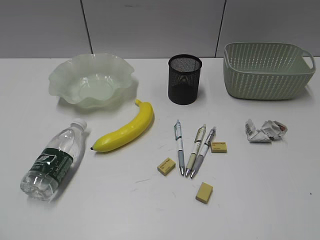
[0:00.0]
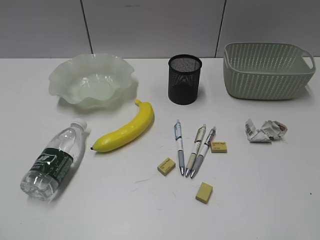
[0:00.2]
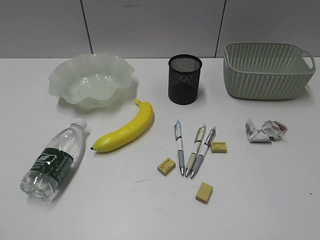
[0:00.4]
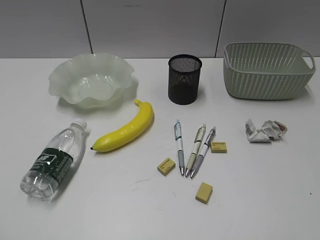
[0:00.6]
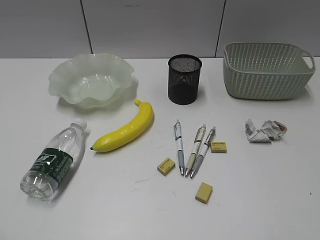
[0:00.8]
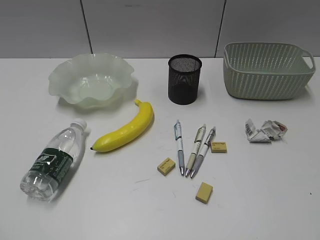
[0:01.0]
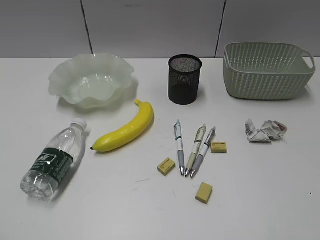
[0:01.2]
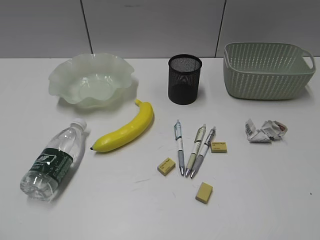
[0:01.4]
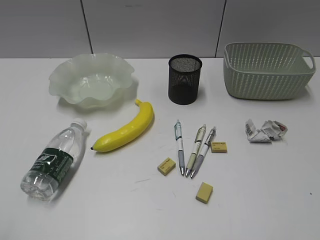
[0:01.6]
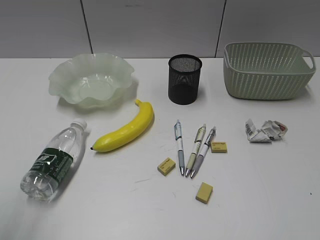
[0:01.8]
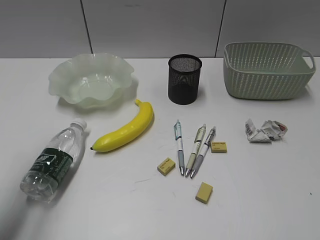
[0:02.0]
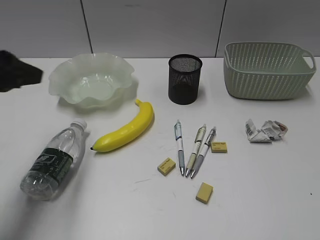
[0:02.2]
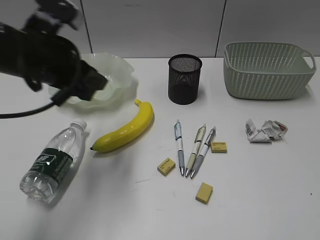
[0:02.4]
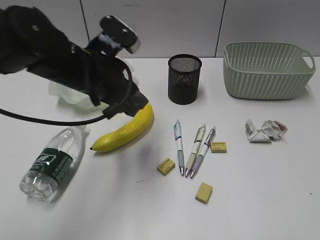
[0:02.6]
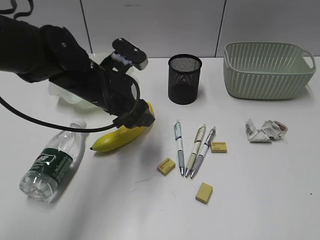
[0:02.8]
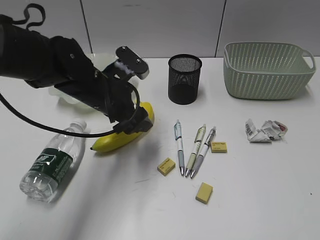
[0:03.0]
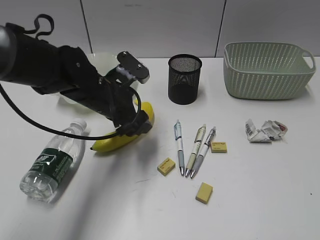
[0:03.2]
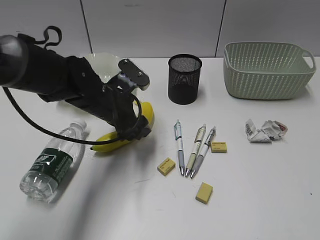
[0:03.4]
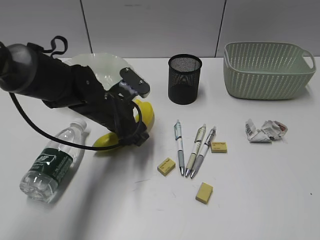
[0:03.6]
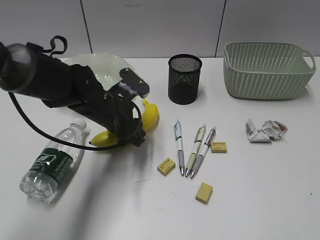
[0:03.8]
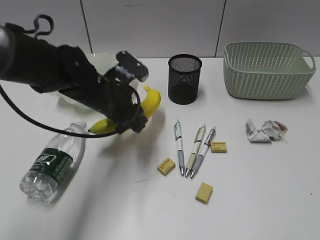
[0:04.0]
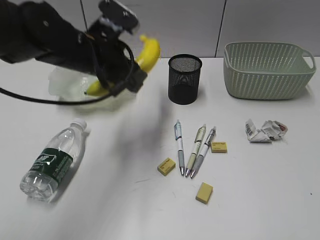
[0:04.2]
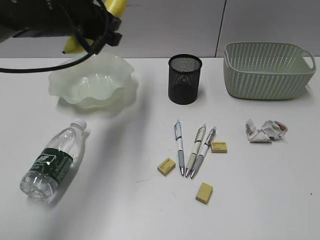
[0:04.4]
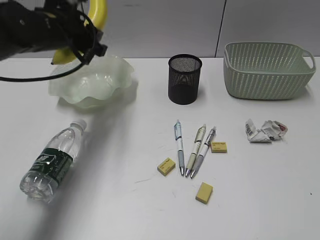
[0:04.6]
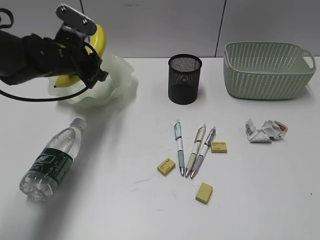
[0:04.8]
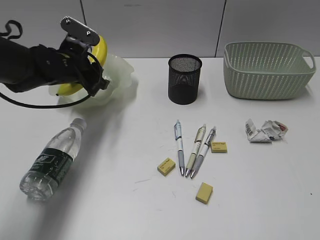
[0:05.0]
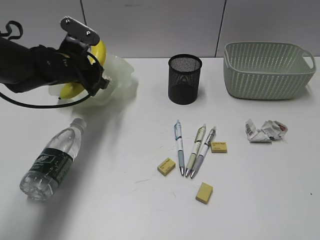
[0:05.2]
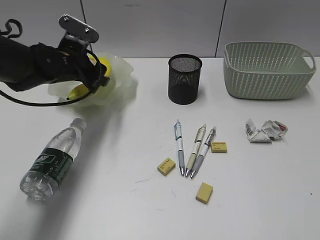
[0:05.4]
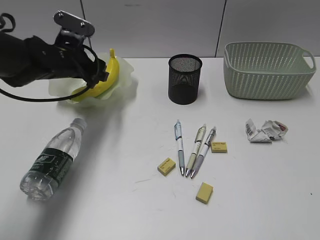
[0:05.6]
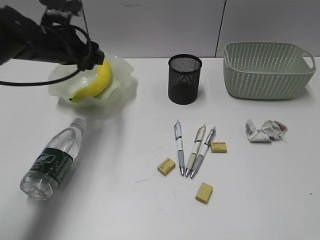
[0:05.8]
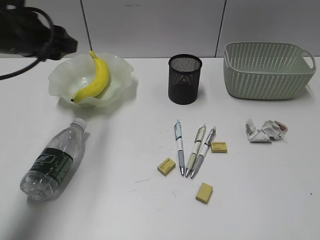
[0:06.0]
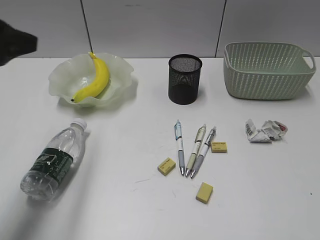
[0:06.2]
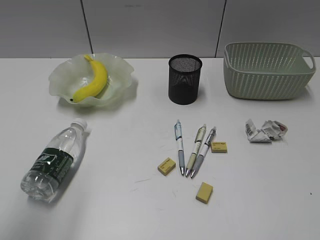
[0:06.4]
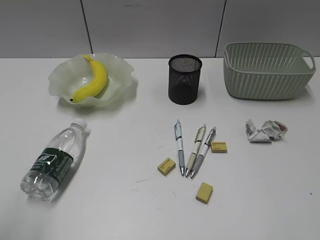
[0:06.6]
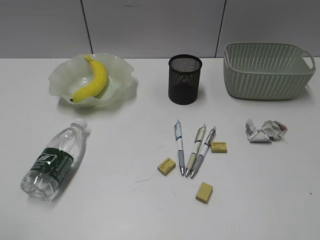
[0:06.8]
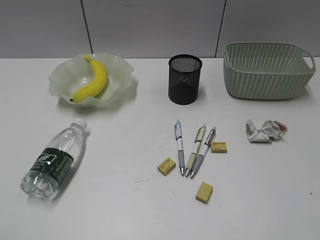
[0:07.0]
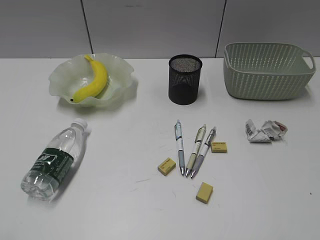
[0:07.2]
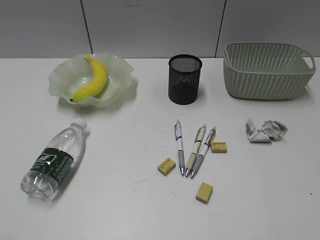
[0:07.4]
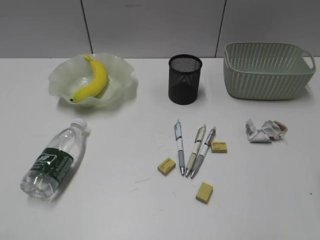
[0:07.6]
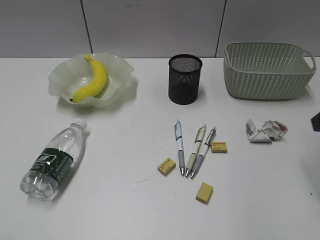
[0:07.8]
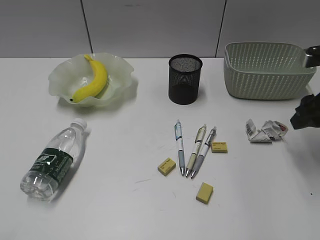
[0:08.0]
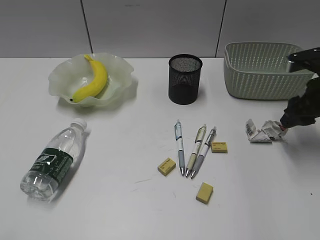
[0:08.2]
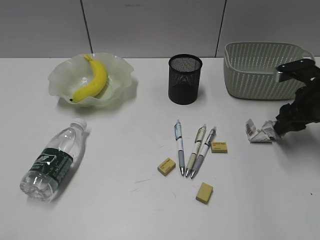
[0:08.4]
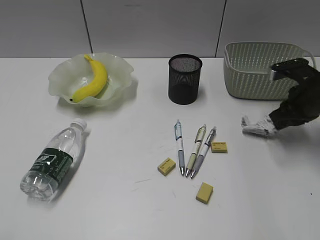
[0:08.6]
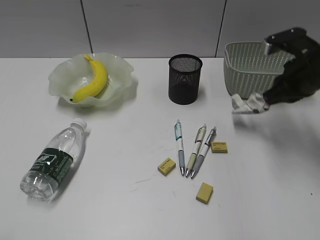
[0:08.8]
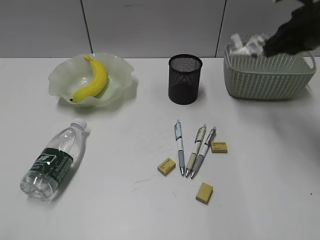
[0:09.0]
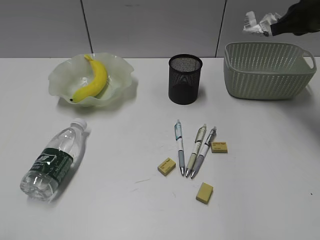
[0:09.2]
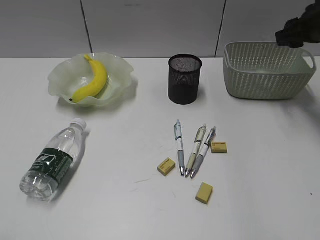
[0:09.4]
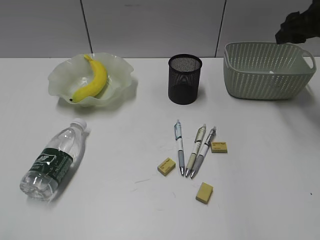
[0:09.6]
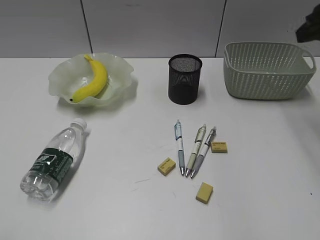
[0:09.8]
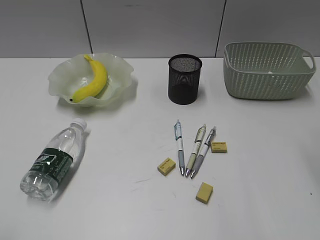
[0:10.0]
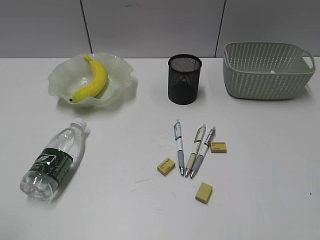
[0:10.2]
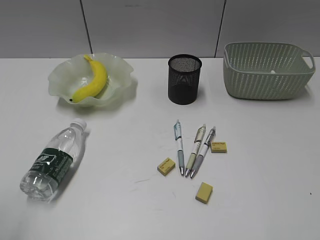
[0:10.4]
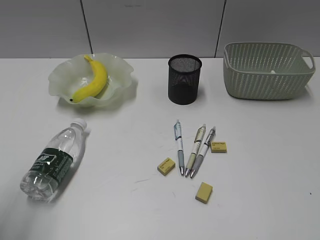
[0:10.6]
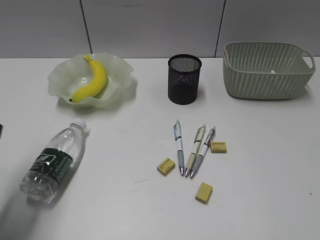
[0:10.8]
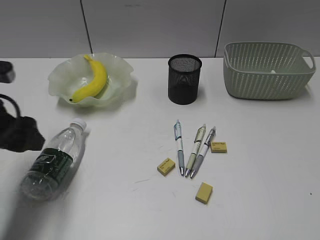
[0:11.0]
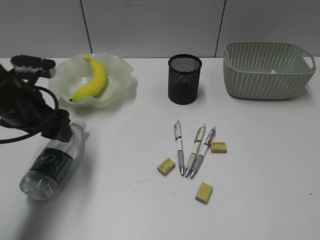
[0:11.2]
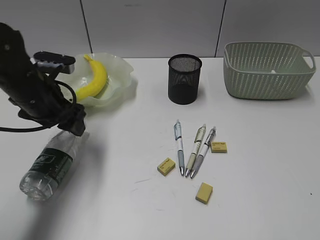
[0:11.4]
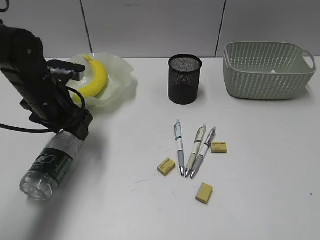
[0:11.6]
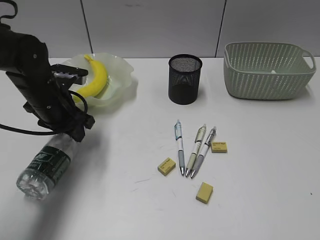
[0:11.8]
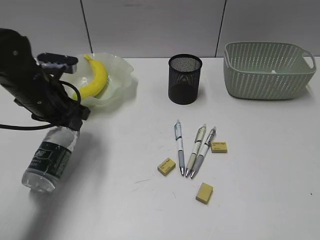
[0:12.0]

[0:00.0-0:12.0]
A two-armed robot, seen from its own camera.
Step, 1.4 to 3.8 s: Grasp the banana with left gripper.
Step, 4.0 to 5.6 s: Place the banana in the plate with left gripper.
Step, 5.8 to 8.6 s: Grasp the waste paper with right gripper.
Step, 8.8 to 9.4 s: Place the waste paper in the basket with right gripper.
Step, 9.6 to 11.8 s: Grasp the bottle with left gripper.
1.6 to 3.0 s: The left gripper shifts approximately 40 cm forward, to the right and downward, and opens up.
3.0 to 4.4 s: The left gripper goes approximately 10 cm upward and to the left, and closes.
4.4 to 6.0 s: The left gripper travels to the left by about 5 cm, and travels downward and back again, roughly 10 cm each way.
6.0 to 7.6 s: The left gripper moves backward, some 35 cm.
7.6 to 9.0 s: The right gripper goes roughly 20 cm forward, and closes up.
9.0 to 10.4 s: The right gripper heads backward, covering some 30 cm, and opens its fingers.
10.4 to 12.0 s: The left gripper heads forward, downward and to the right, covering about 30 cm, and opens, then closes again.

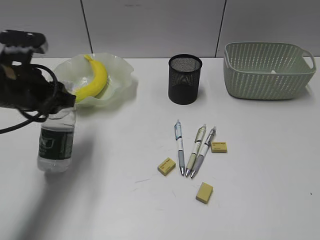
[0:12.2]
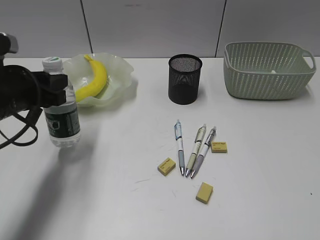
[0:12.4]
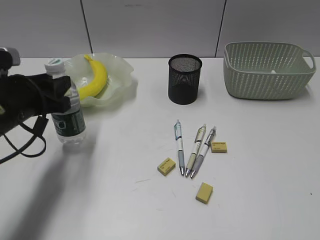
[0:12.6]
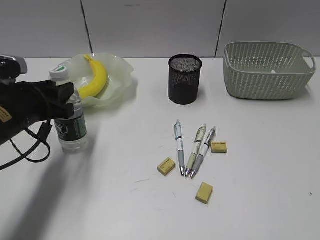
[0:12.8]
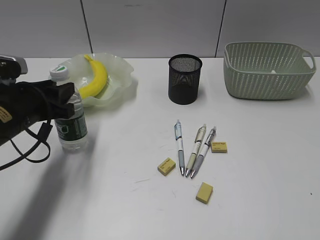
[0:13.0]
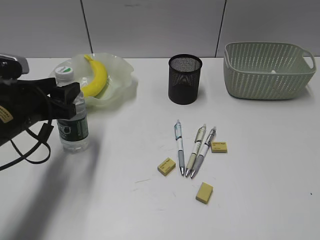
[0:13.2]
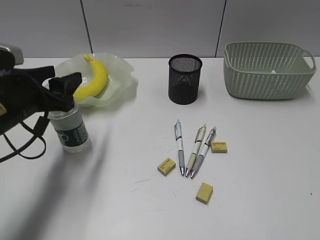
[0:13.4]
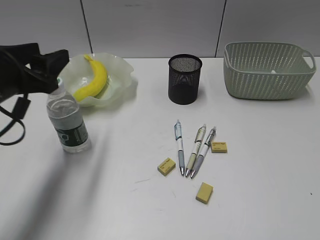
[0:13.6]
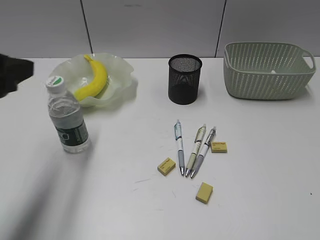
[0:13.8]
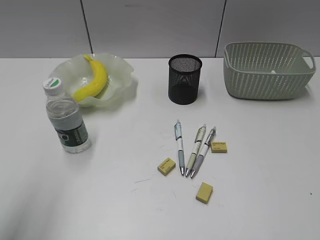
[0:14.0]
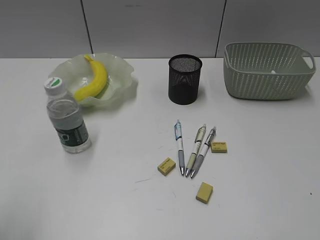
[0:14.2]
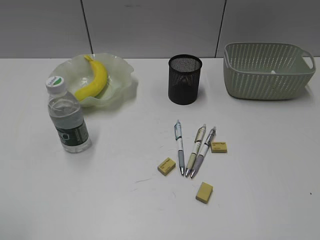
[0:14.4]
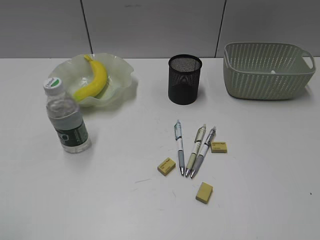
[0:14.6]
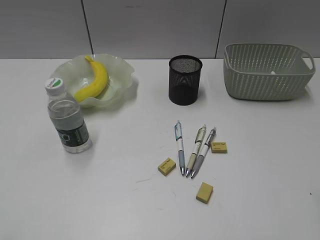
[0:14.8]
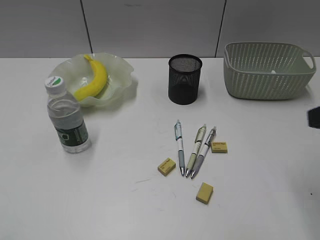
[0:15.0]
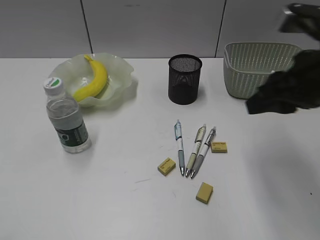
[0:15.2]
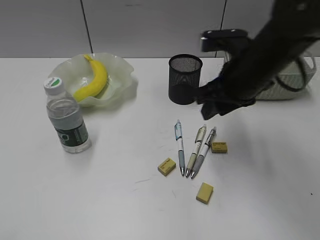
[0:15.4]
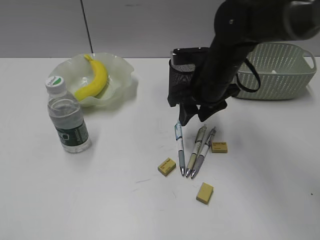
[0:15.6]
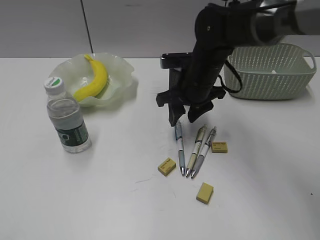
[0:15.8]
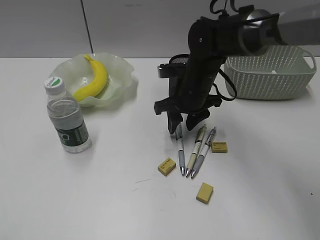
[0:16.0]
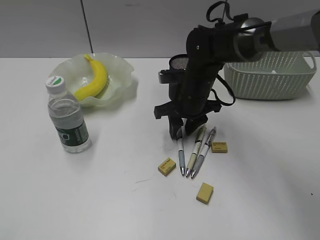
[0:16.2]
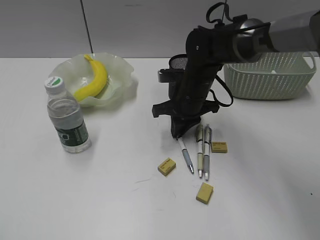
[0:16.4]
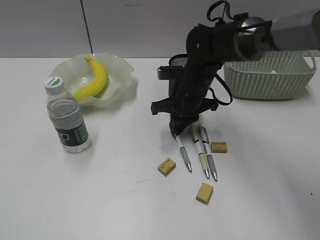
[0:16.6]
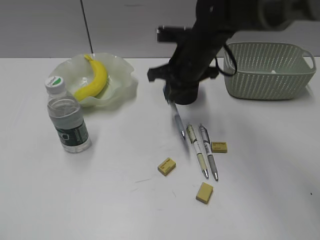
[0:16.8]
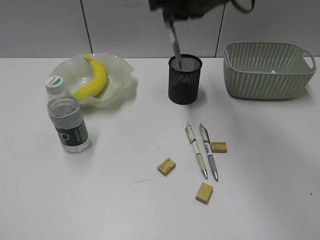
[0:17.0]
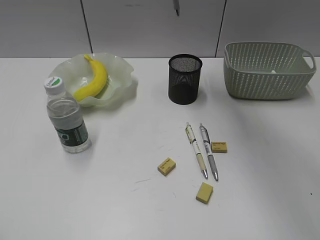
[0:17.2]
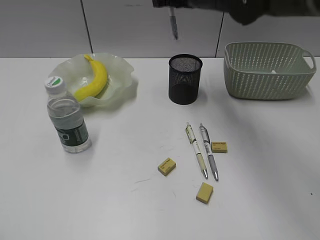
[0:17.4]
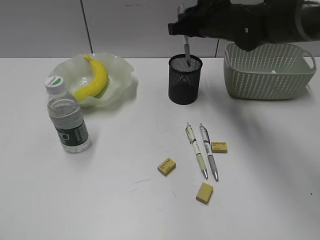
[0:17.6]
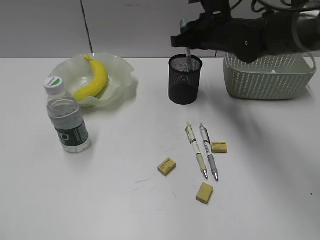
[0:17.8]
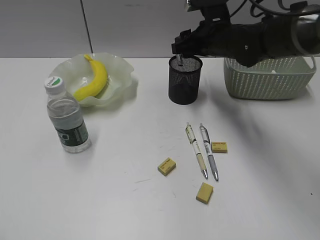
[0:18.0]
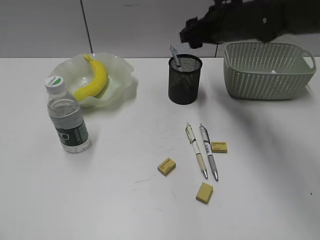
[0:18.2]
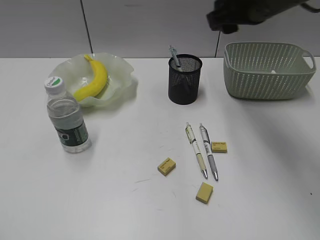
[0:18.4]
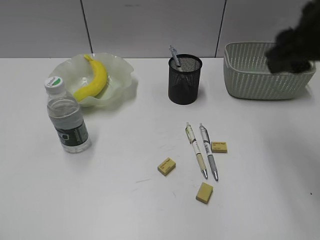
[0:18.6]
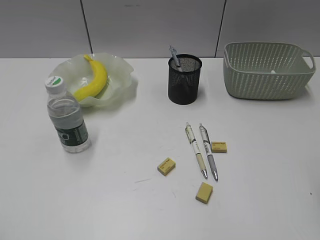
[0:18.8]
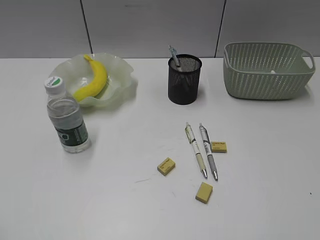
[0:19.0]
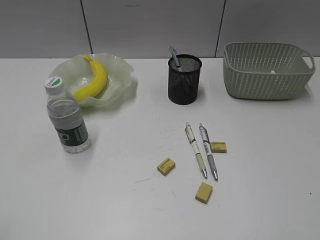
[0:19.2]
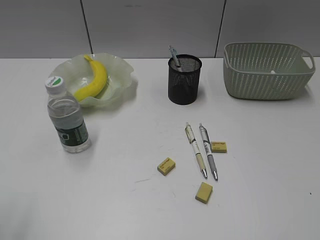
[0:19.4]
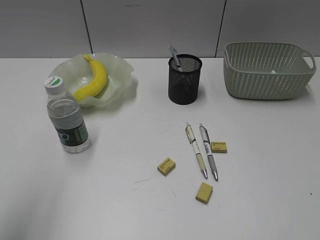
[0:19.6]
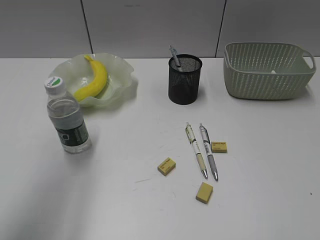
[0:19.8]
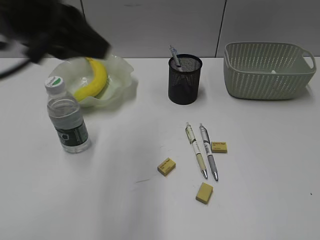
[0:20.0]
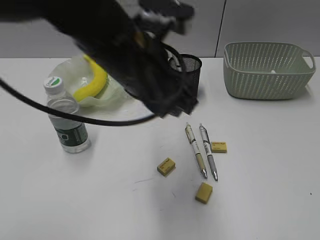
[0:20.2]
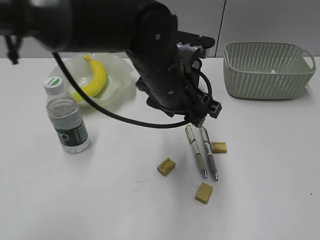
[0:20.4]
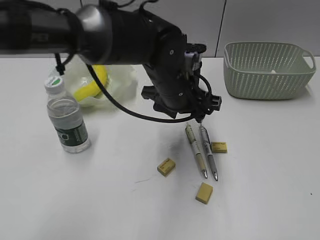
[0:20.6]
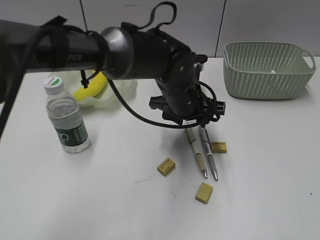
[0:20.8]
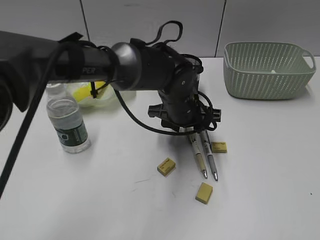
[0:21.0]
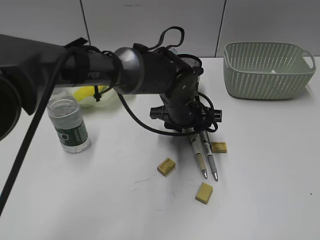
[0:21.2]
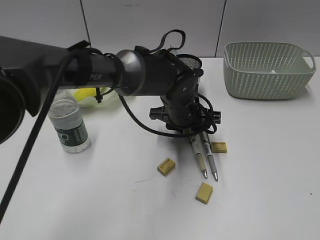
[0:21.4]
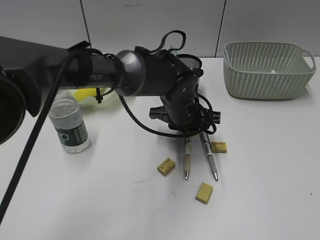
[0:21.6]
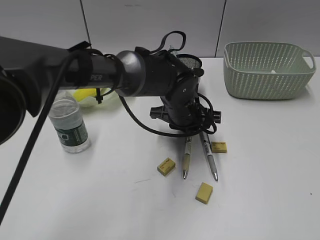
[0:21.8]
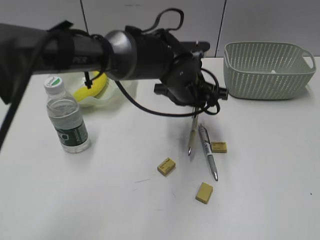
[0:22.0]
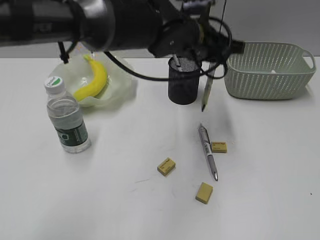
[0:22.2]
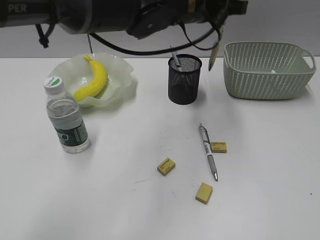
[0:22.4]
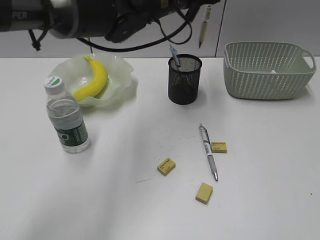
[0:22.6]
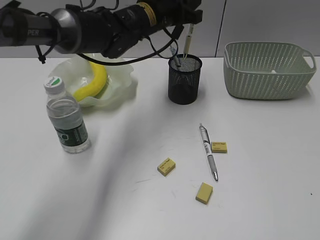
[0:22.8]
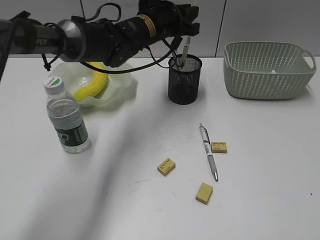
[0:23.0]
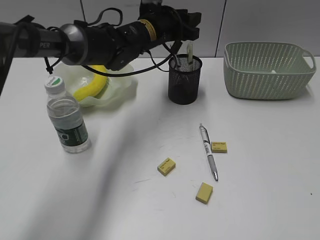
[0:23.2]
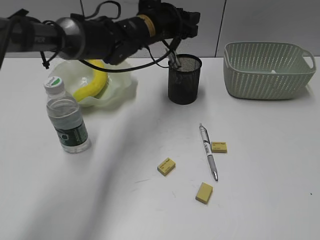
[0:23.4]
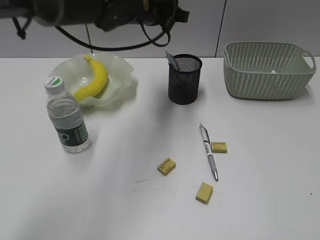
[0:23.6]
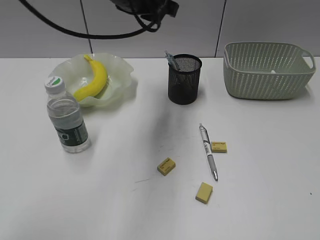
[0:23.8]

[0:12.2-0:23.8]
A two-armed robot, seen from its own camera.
Step, 12.2 to 13.4 s: Stand the bottle with left gripper.
Step, 13.6 to 16.4 s: Grasp the blue pen with right gripper.
Step, 16.6 to 18.0 s: Place the blue pen in pen holder with right gripper.
Step, 18.2 to 21.6 s: Grasp the yellow pen with left gripper.
Step, 21.8 to 23.2 s: Place the yellow pen in pen holder with left gripper.
12.2 to 13.6 s: The left gripper opens.
13.6 to 15.0 s: The right gripper goes about 20 cm forward; the left gripper goes about 25 cm backward, and closes up.
15.0 to 16.6 s: The right gripper is displaced forward, to the left and downward by approximately 35 cm, and closes.
16.6 to 18.0 s: The right gripper travels to the right by some 5 cm, reaches roughly 20 cm upward, then returns, and opens its fingers.
18.0 to 19.4 s: The right gripper shifts some 50 cm backward and to the right, and closes. The left gripper is displaced forward by approximately 5 cm.
19.4 to 21.0 s: The left gripper shifts roughly 50 cm to the right, forward and downward, and opens up.
21.0 to 22.4 s: The left gripper heads upward, covering approximately 15 cm, and closes.
22.4 to 23.8 s: The left gripper heads to the left, covering approximately 10 cm, and reaches roughly 10 cm downward, then returns.
